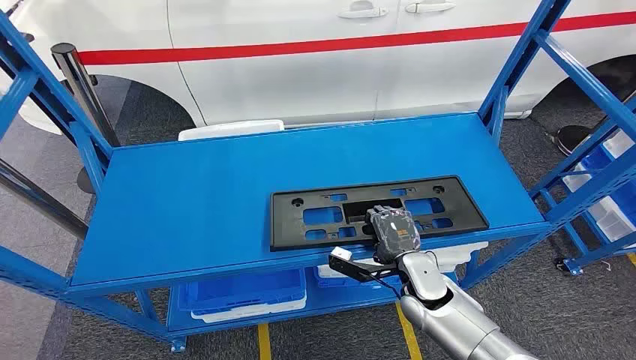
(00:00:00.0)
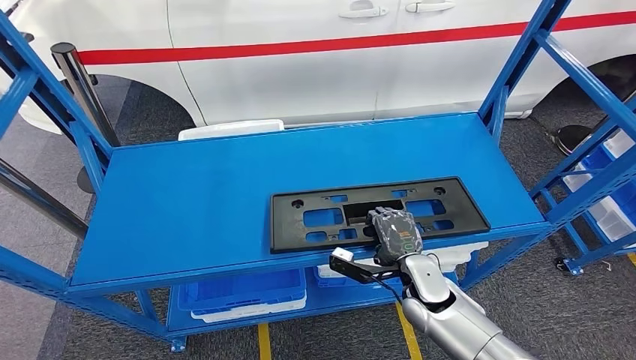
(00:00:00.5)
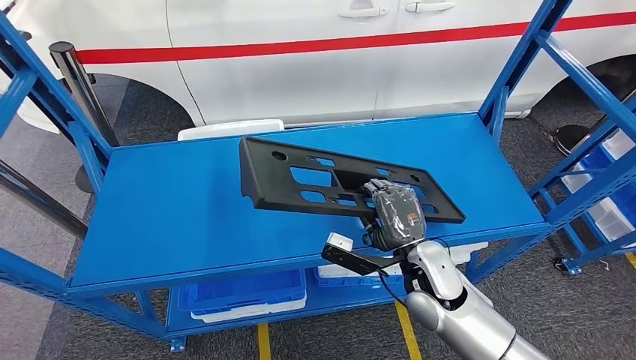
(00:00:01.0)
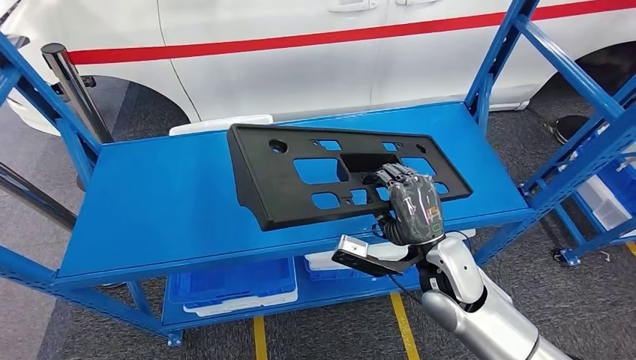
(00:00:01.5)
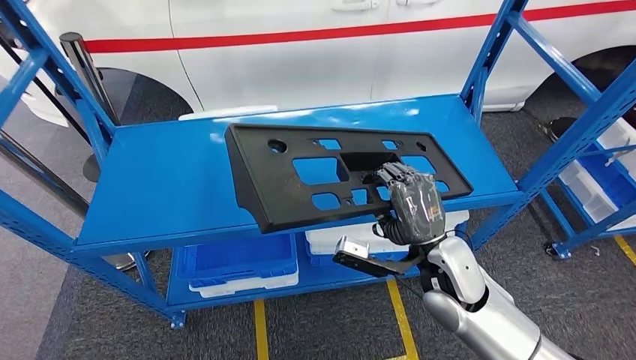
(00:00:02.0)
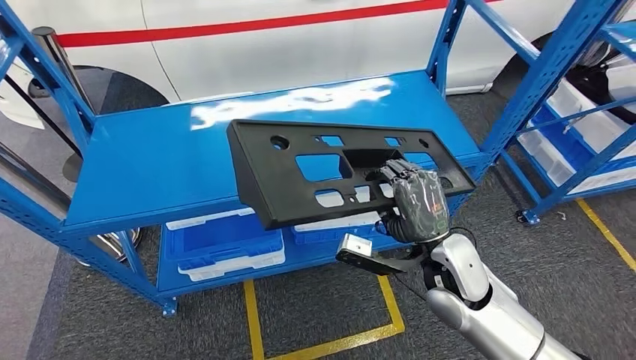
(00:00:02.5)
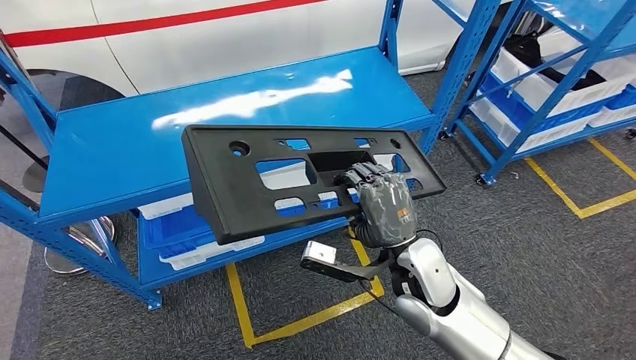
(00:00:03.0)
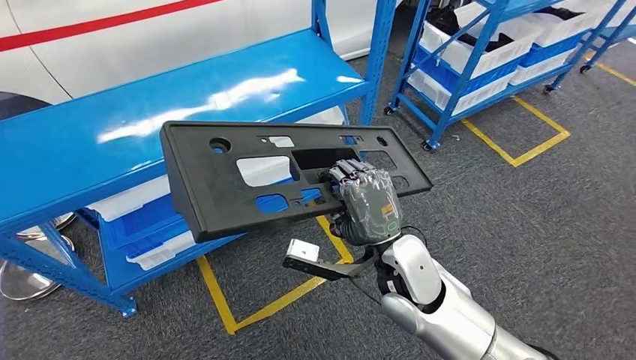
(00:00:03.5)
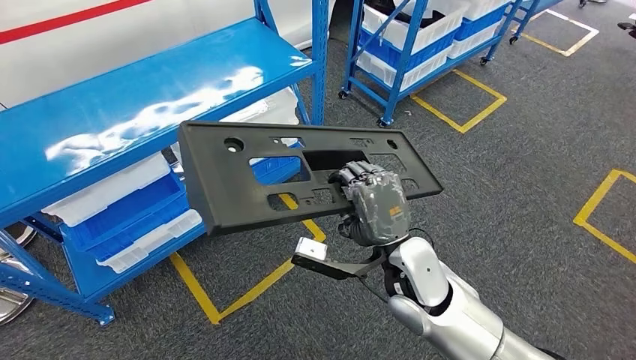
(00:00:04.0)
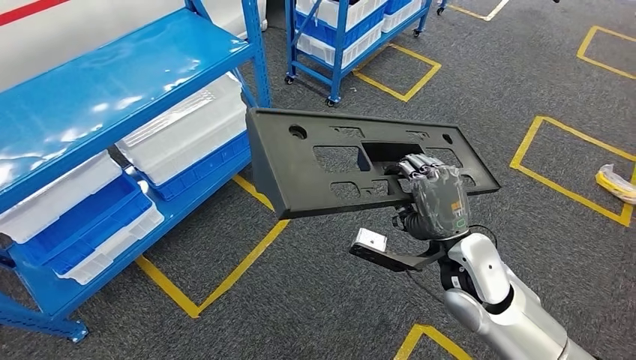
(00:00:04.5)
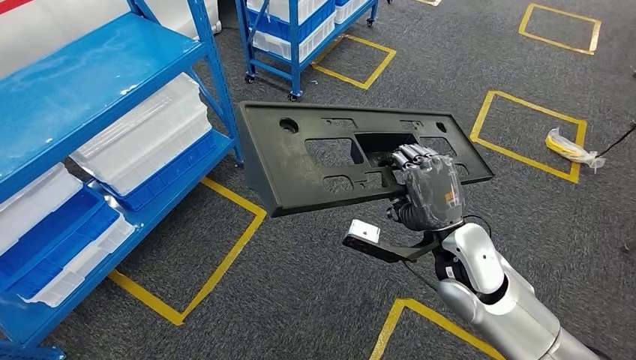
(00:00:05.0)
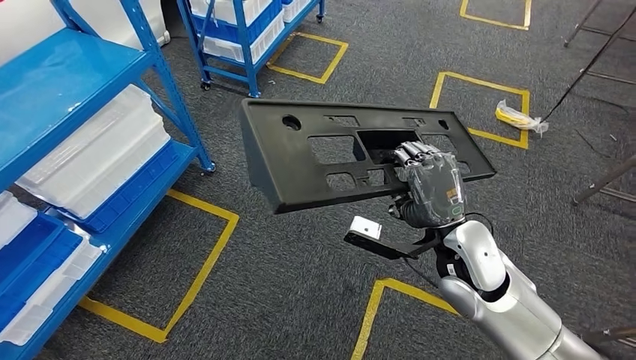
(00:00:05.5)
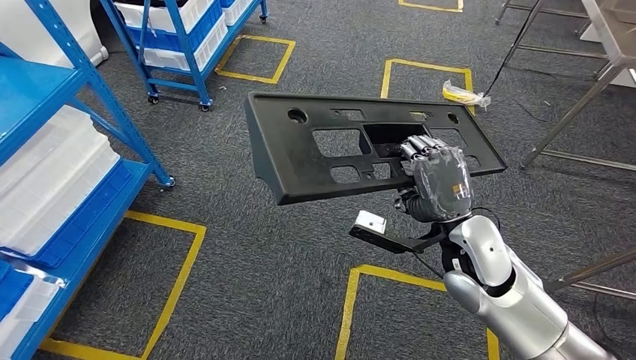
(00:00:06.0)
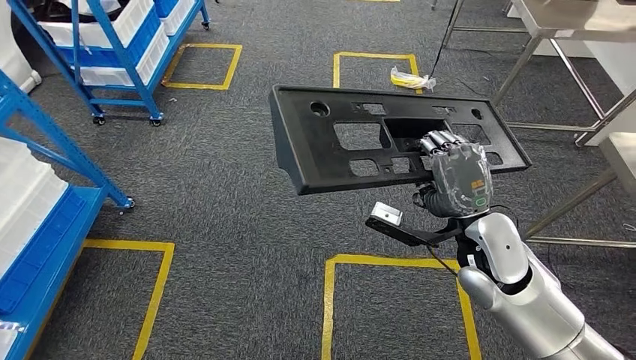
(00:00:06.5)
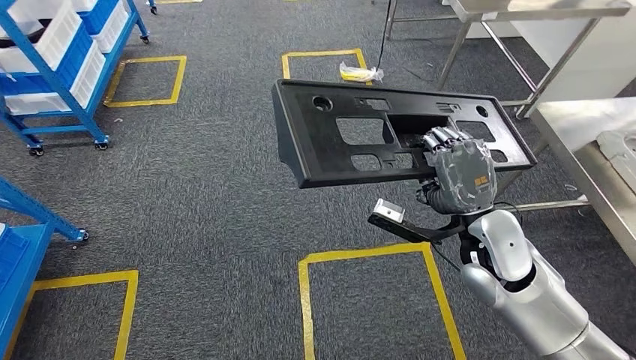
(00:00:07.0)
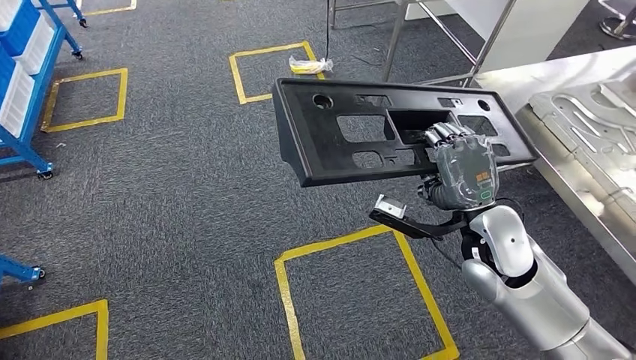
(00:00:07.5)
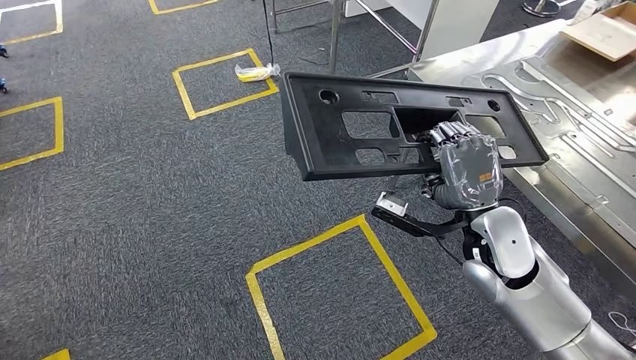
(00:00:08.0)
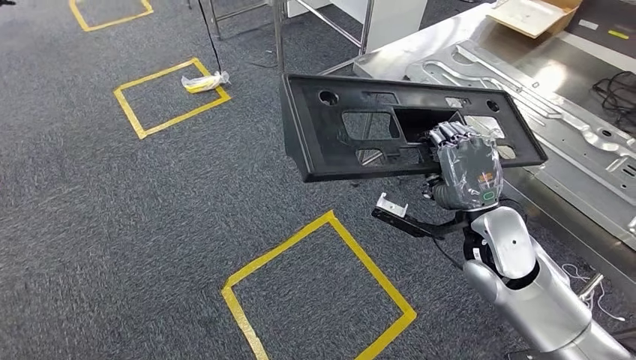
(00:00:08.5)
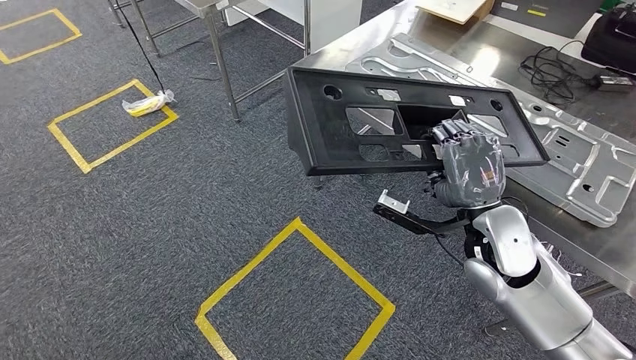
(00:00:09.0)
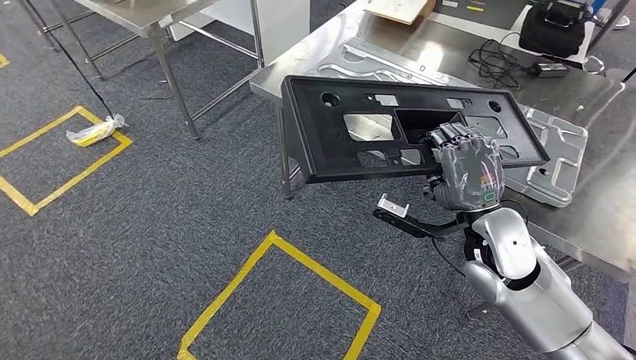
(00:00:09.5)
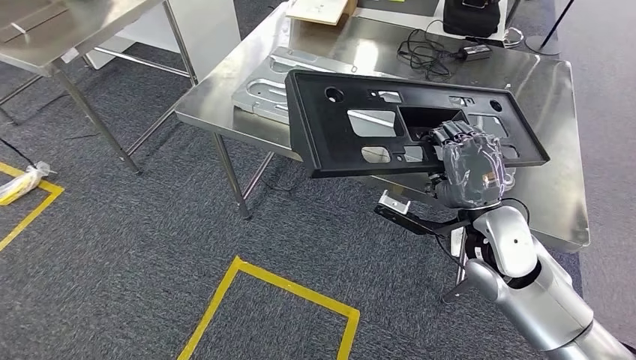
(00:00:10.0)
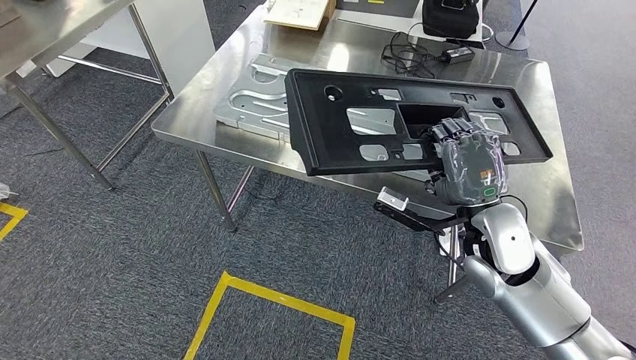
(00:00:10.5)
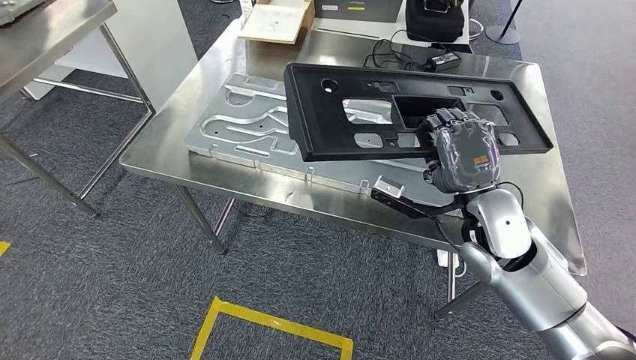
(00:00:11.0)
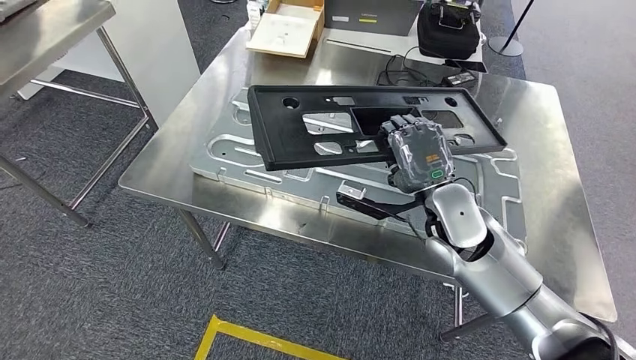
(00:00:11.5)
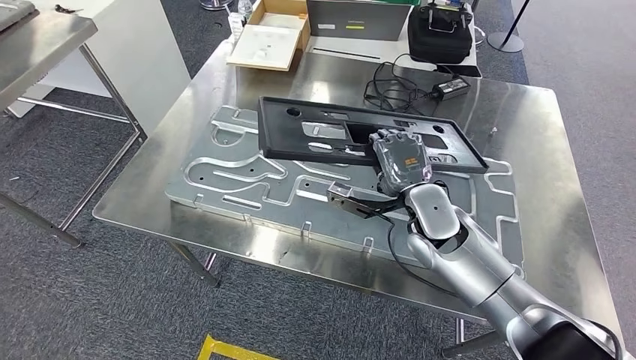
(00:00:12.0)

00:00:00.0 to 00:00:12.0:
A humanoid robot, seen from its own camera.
Step, 00:00:00.0 to 00:00:03.5: Pick up the large material from the shelf.
Step, 00:00:05.5 to 00:00:10.5: Move the large material to the workbench.

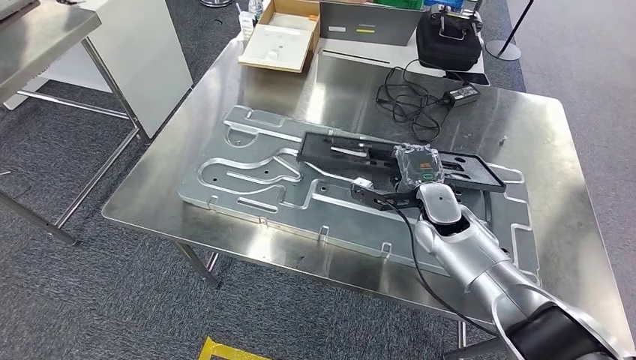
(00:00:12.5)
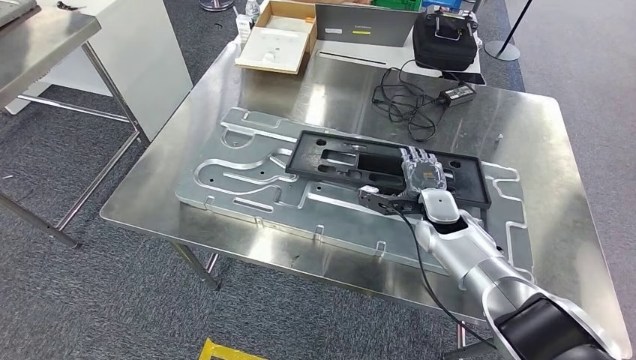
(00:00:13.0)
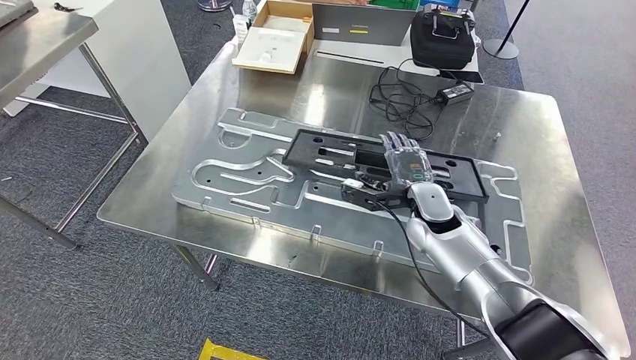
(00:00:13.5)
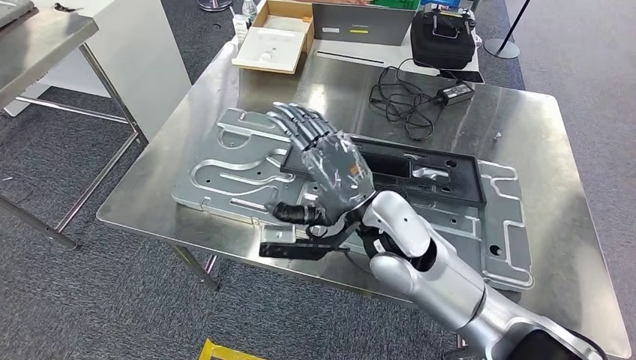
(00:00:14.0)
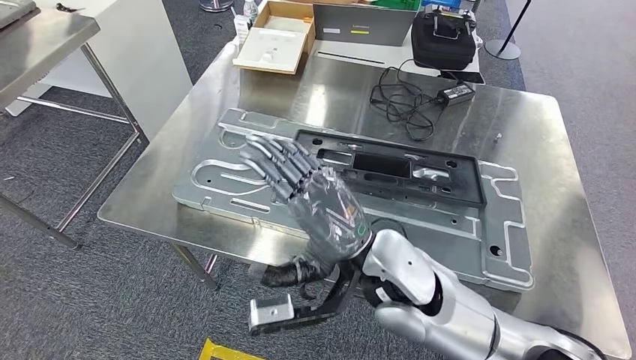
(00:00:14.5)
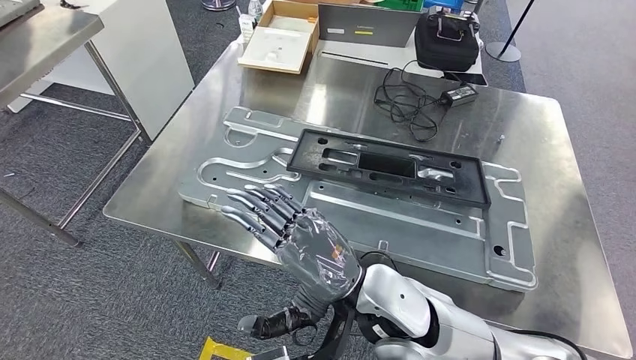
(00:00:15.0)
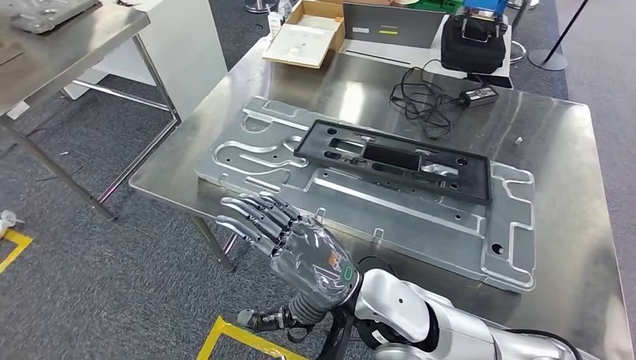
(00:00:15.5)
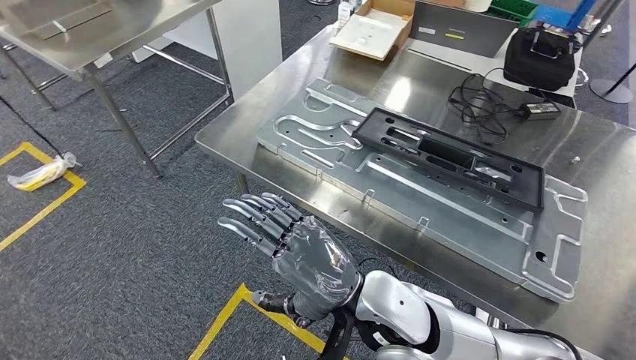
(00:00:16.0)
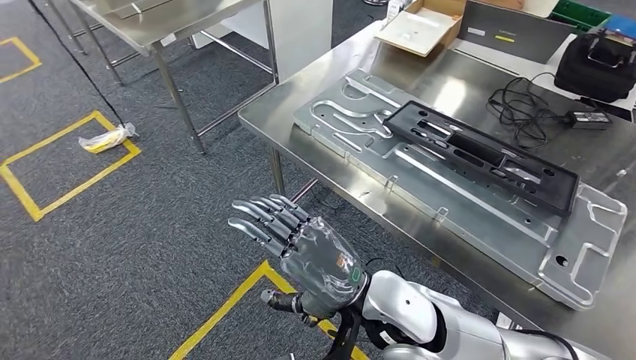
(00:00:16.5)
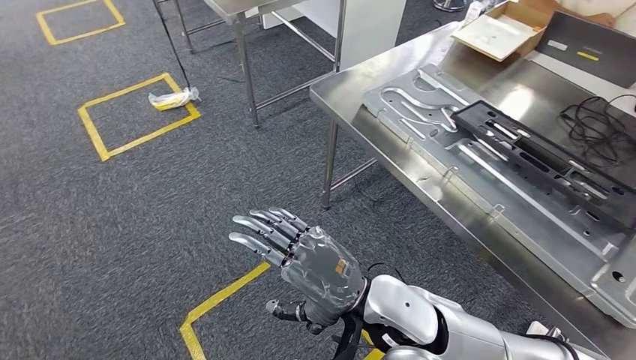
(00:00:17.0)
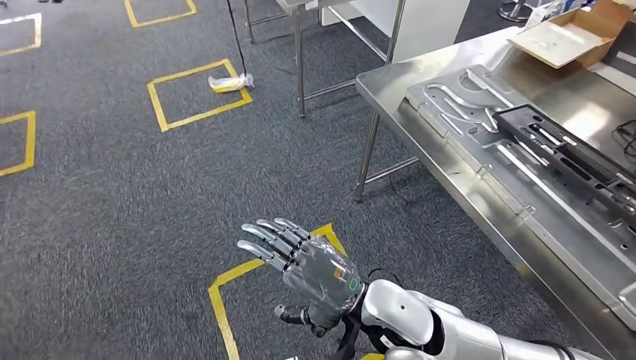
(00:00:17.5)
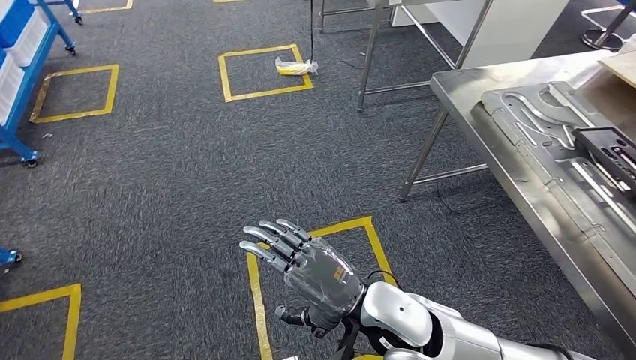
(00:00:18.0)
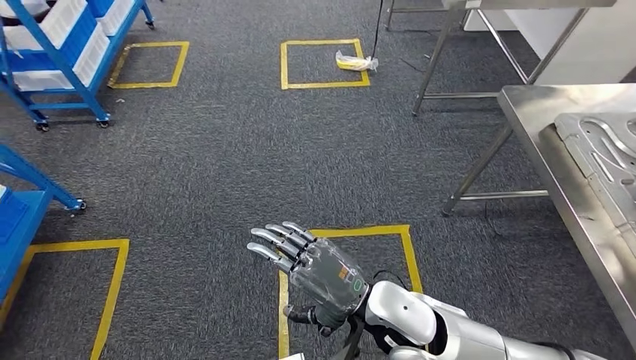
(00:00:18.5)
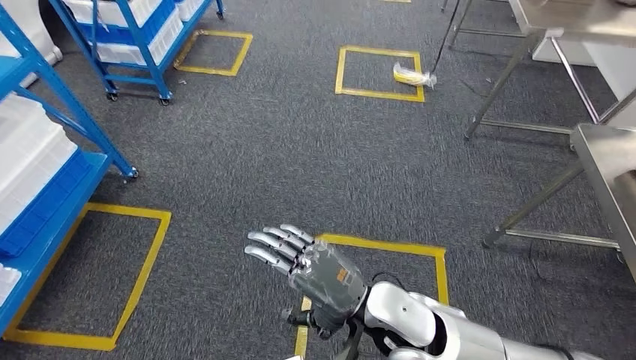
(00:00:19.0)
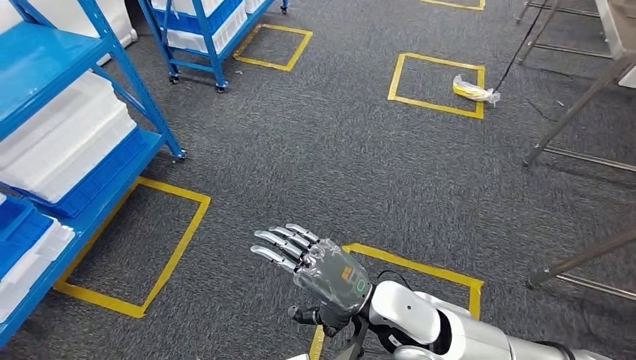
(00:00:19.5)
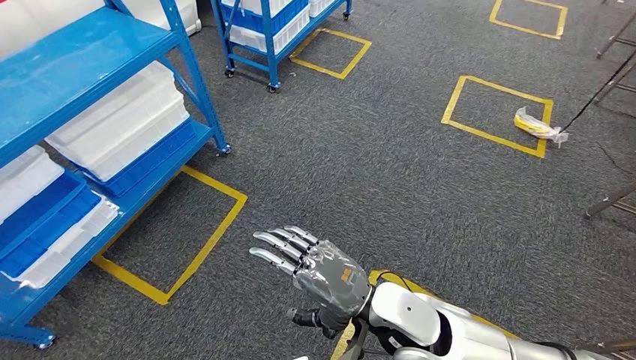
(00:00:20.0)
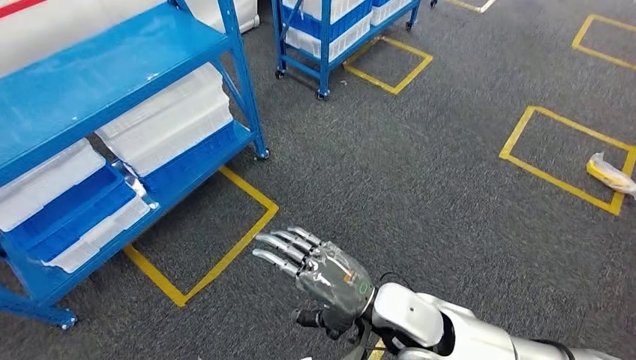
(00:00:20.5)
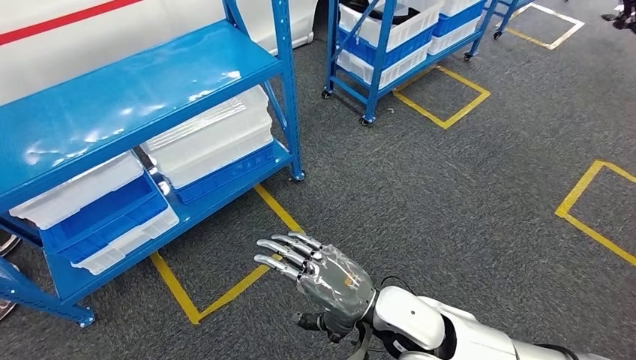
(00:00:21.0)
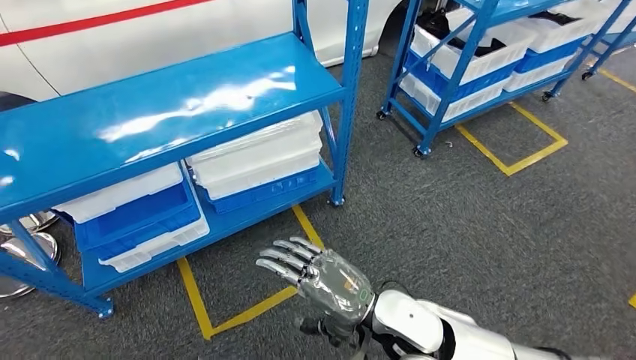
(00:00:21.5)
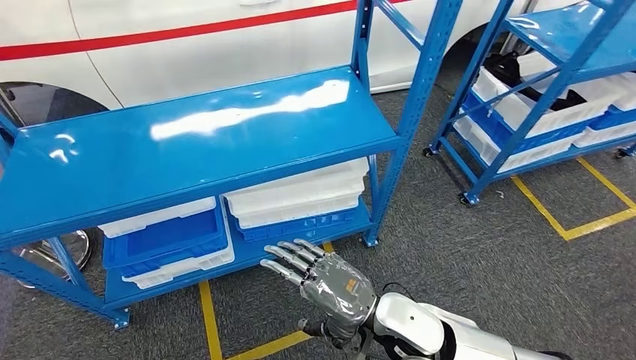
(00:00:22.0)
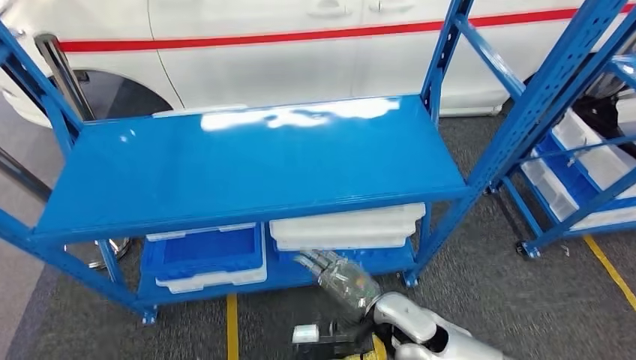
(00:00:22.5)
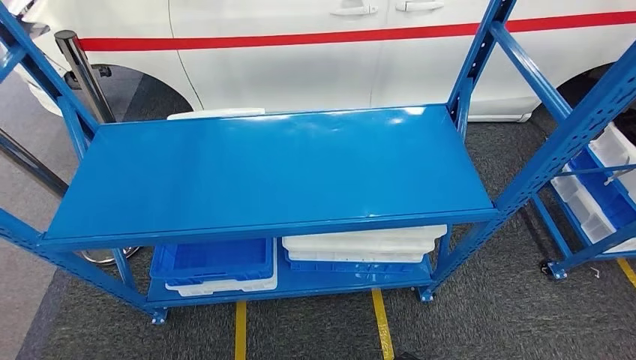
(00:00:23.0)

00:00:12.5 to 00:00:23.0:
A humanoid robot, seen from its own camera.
Step, 00:00:12.5 to 00:00:14.0: Insert the large material into the corresponding slot on the workbench.
Step, 00:00:15.5 to 00:00:23.0: Move to the initial position of the shelf.
